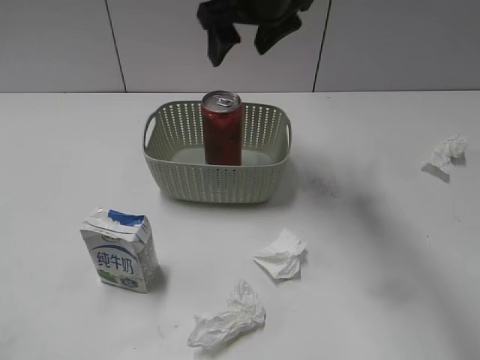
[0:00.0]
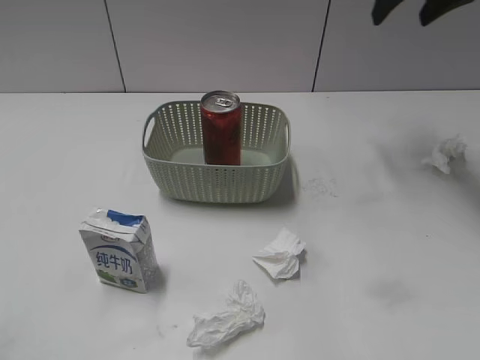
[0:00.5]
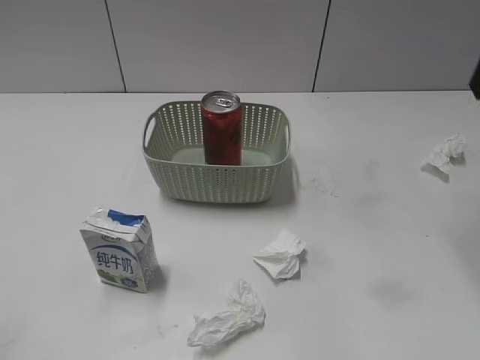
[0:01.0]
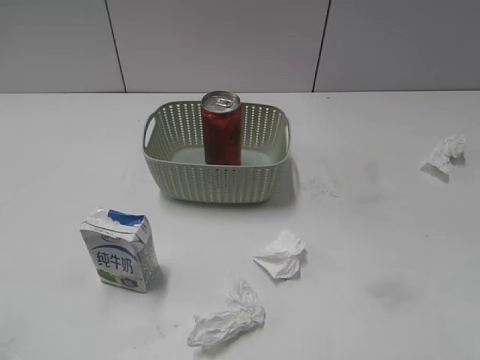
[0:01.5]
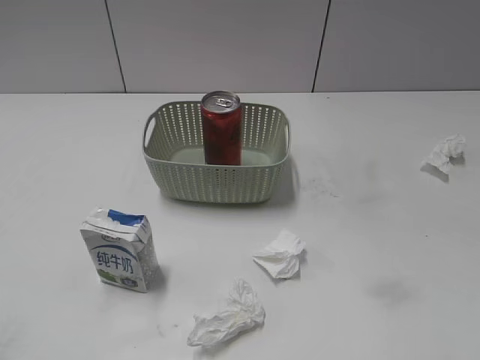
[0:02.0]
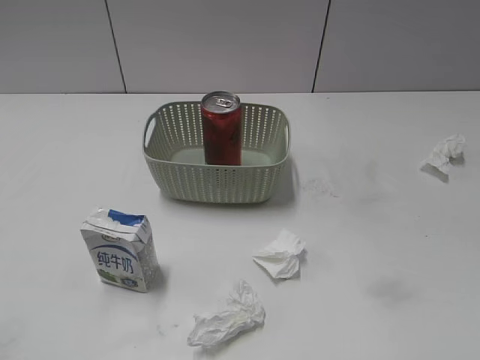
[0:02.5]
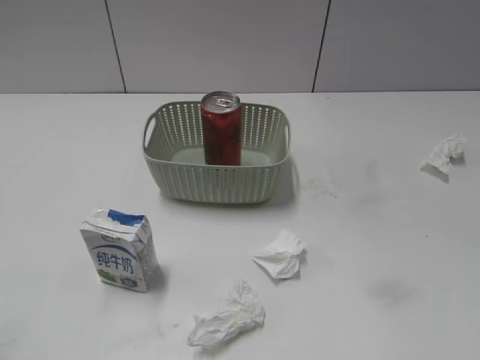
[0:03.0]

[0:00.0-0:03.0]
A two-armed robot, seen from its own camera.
0:00.0 to 0:01.5: The right gripper goes approximately 35 cm backward and to the right.

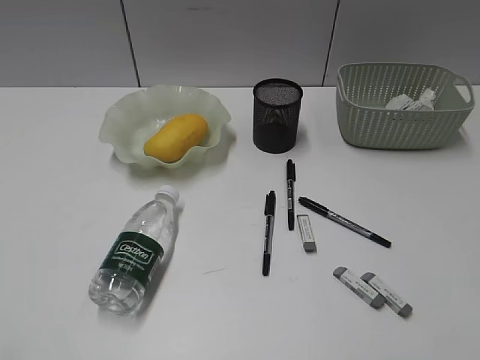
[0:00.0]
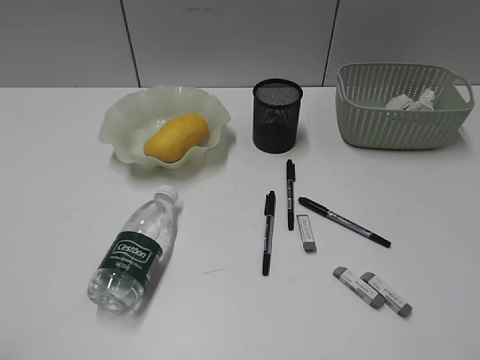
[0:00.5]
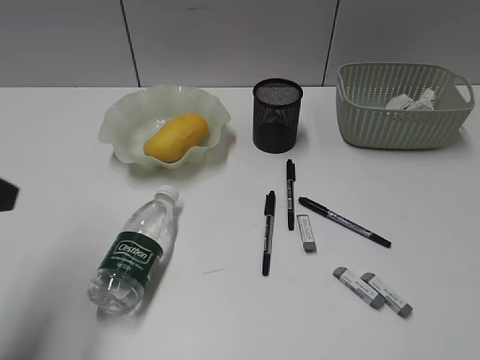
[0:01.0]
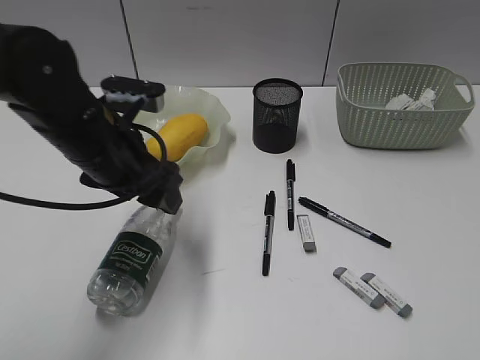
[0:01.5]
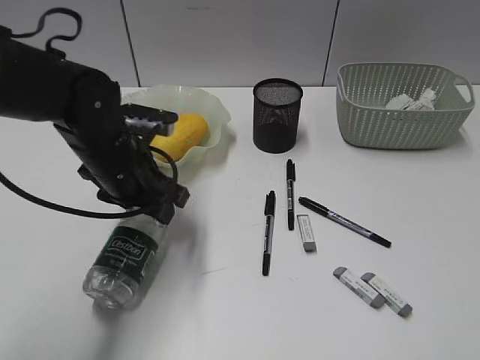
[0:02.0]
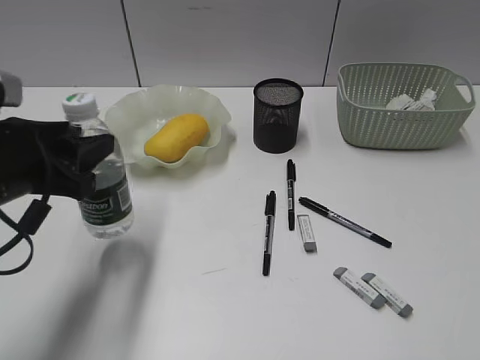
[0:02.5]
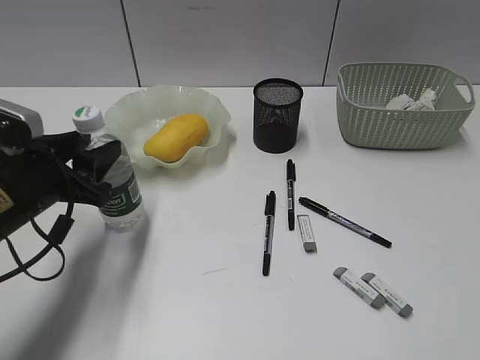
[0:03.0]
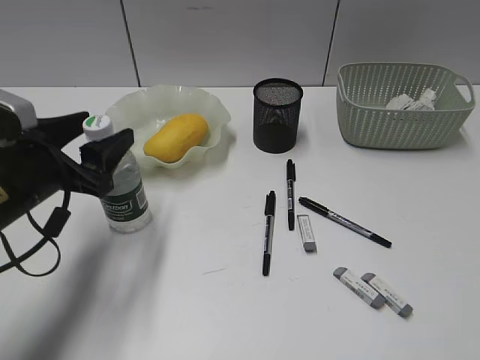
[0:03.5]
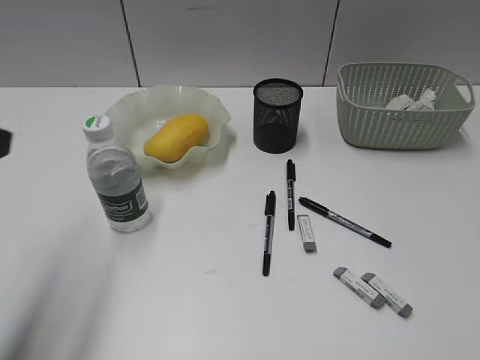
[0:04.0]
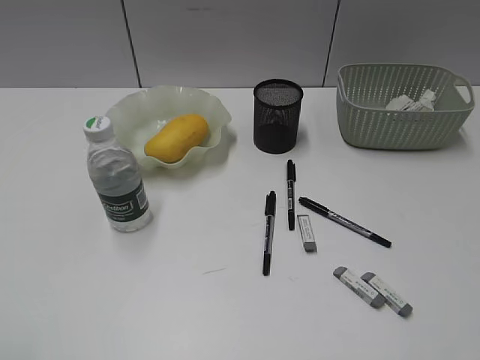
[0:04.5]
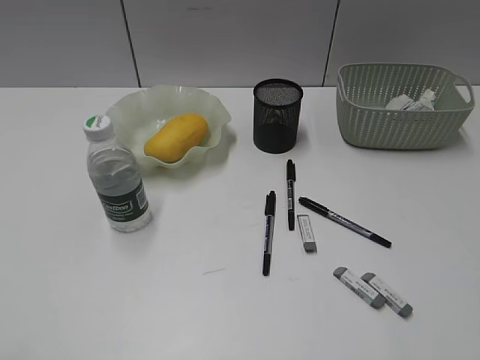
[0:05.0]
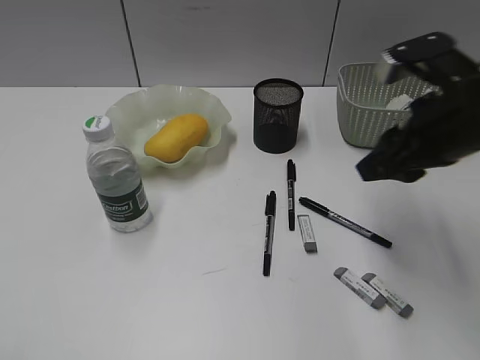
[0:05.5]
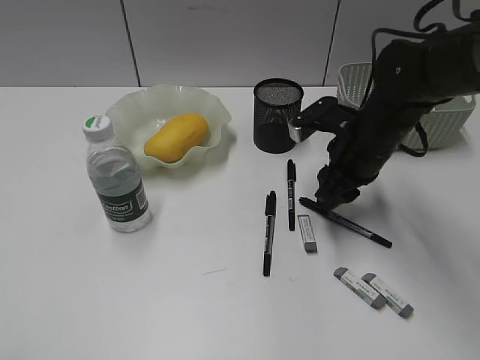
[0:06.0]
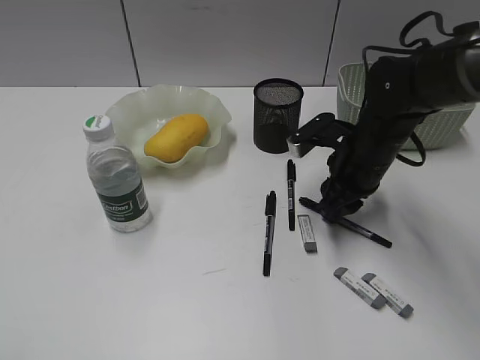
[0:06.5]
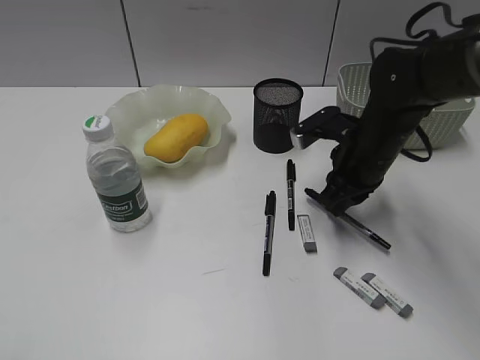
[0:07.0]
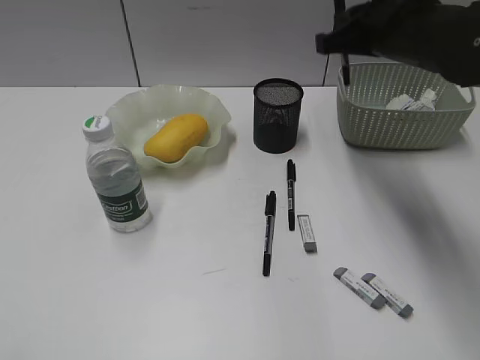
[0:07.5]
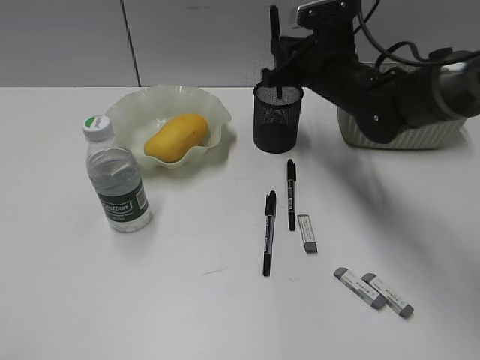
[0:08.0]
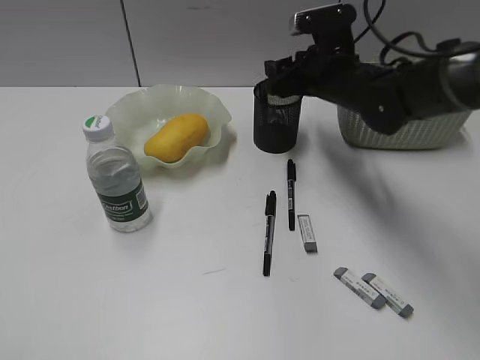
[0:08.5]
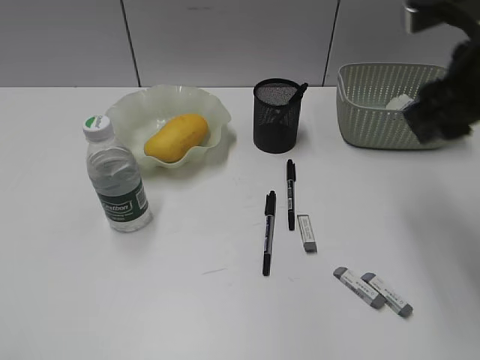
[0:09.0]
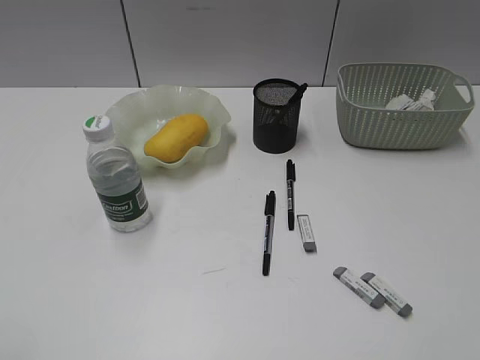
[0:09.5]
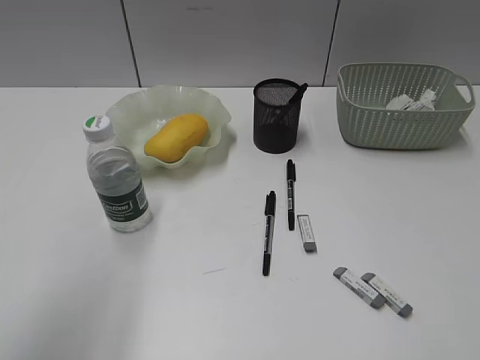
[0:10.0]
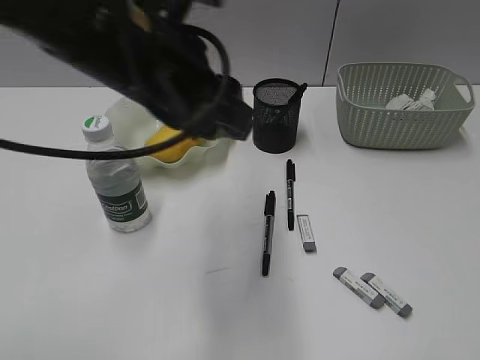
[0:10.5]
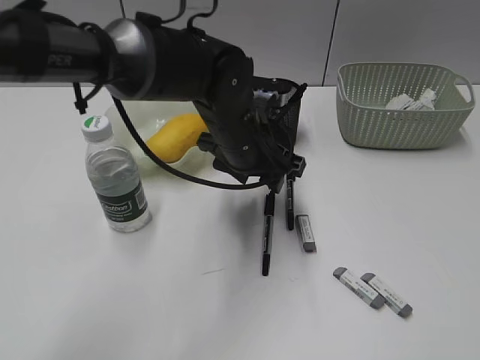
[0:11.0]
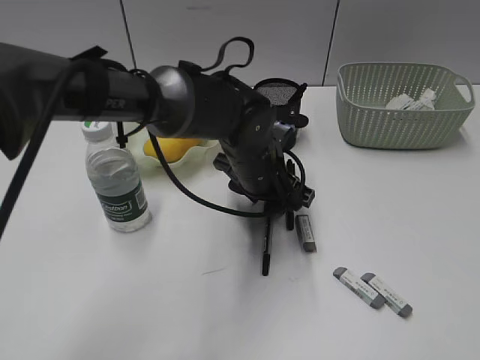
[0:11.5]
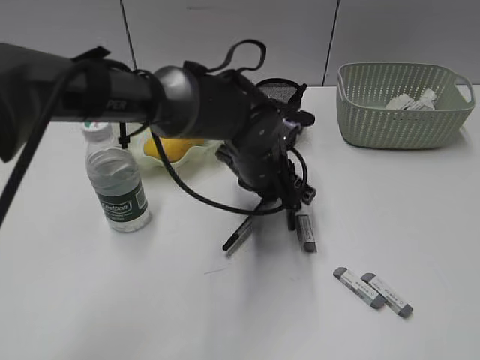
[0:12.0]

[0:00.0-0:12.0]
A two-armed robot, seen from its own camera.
Step, 0:00.0 to 0:01.5: Grasp the bottle with left gripper.
Step, 0:02.0 to 0:03.5: Stand the bottle with left gripper.
Step, 0:04.0 to 0:06.5: Grasp the black pen with right gripper.
Step, 0:07.0 to 0:08.0: Place the black pen in pen holder with right gripper.
Step, 0:08.5 to 0:11.5: Grasp the black pen with left gripper.
0:00.0 to 0:02.0: The left gripper shifts about 40 cm forward, to the right and downward. Meanwhile the right gripper shifts approximately 15 cm backward.
0:02.0 to 0:04.0: The left gripper travels backward, upward and to the left by some 25 cm.
0:04.0 to 0:06.0: The left gripper shifts about 20 cm backward, while the right gripper goes some 40 cm forward, to the left and downward.
0:06.0 to 0:08.0: The right gripper shifts approximately 5 cm forward, goes upward and returns, approximately 10 cm each way, and closes.
0:08.0 to 0:10.0: The left gripper moves forward, to the right and upward, some 15 cm; the right gripper moves backward and to the right, approximately 50 cm, and opens its fingers.
0:10.0 to 0:12.0: The left gripper goes about 40 cm to the right, downward and forward, and closes up.

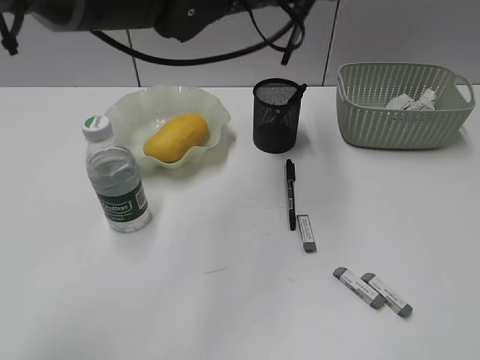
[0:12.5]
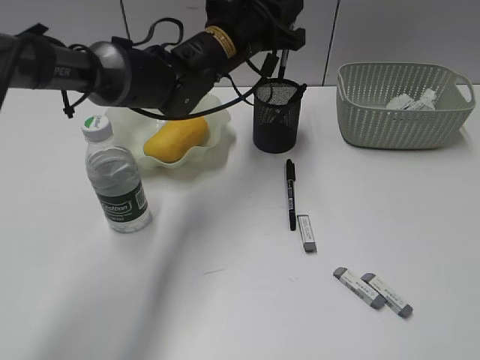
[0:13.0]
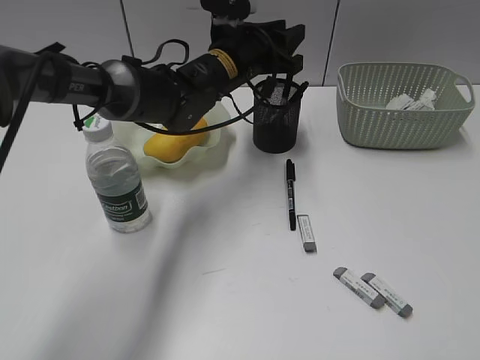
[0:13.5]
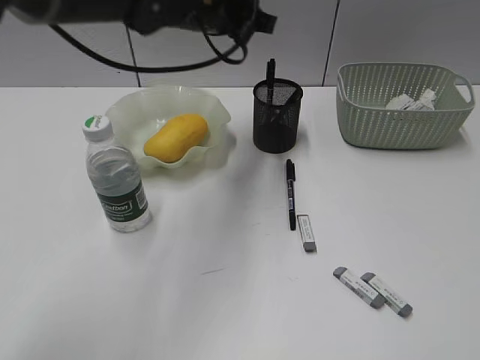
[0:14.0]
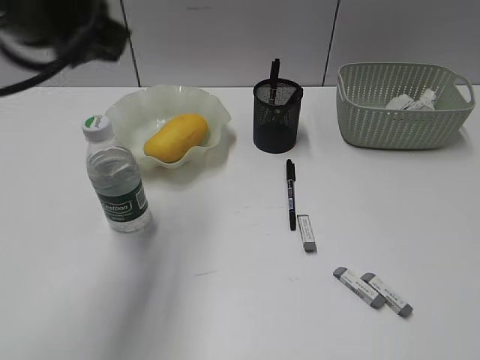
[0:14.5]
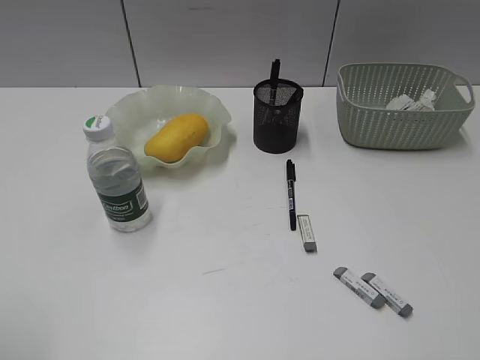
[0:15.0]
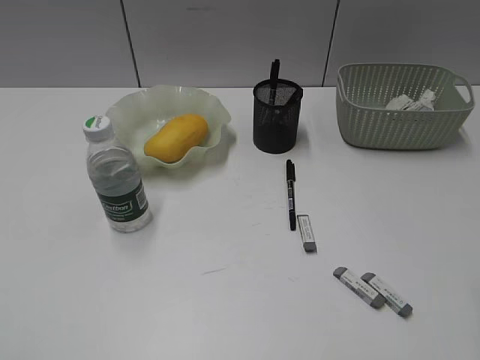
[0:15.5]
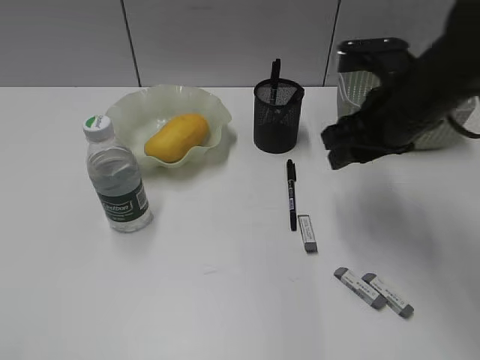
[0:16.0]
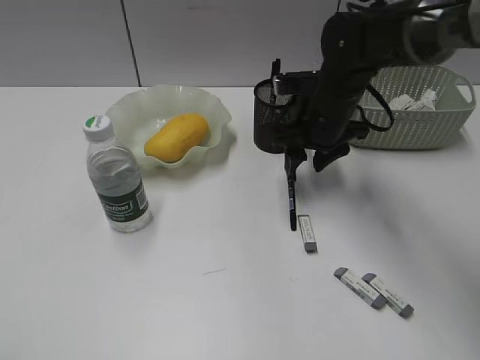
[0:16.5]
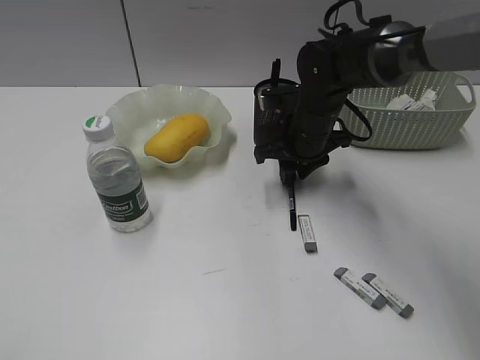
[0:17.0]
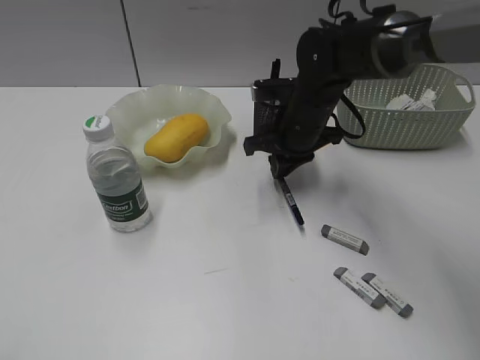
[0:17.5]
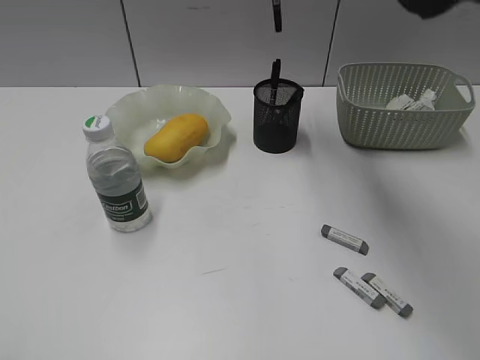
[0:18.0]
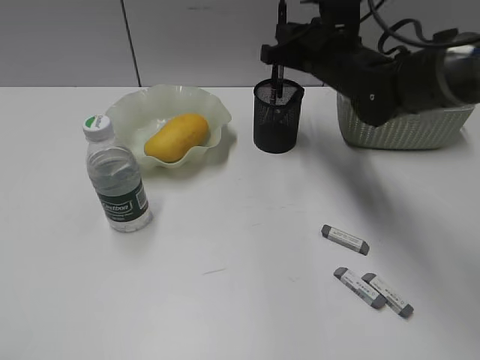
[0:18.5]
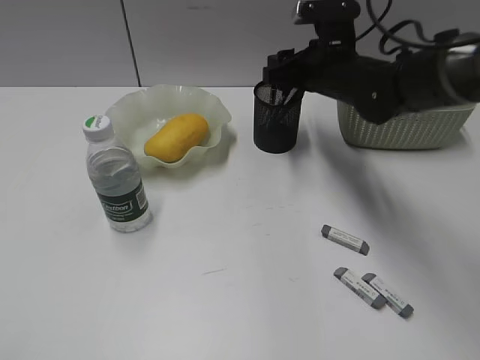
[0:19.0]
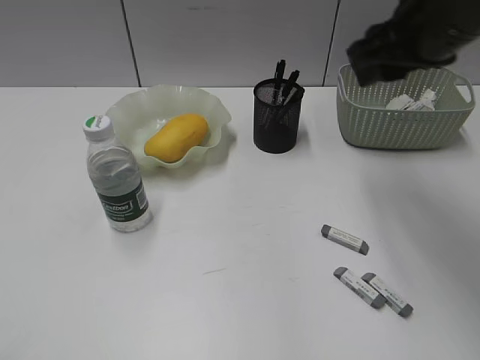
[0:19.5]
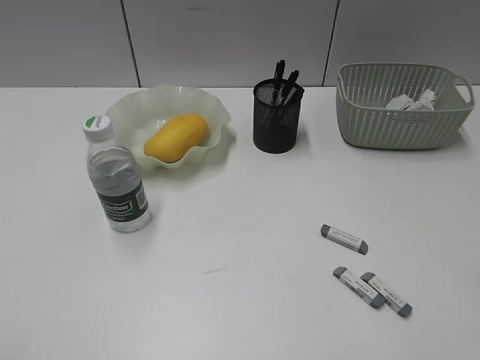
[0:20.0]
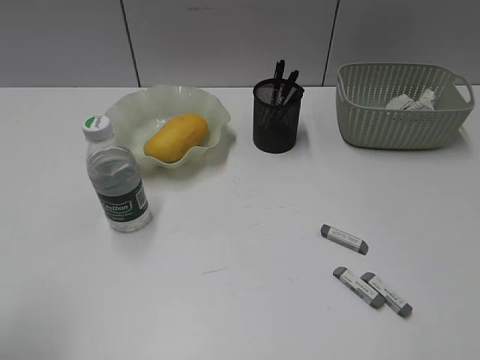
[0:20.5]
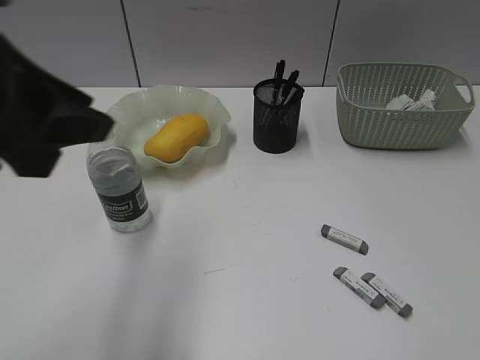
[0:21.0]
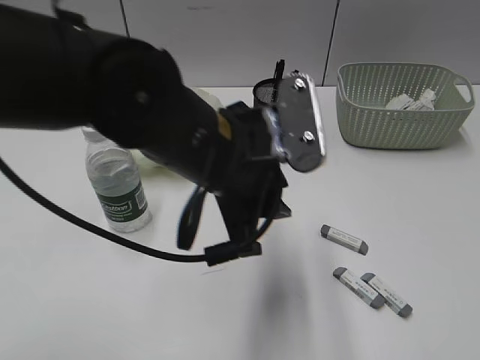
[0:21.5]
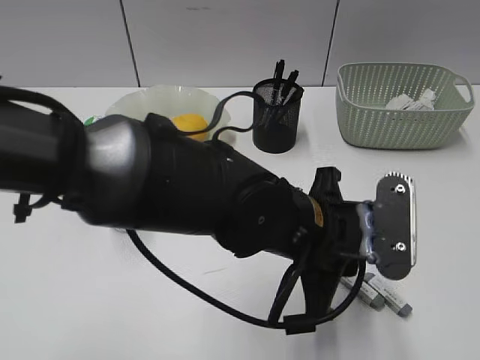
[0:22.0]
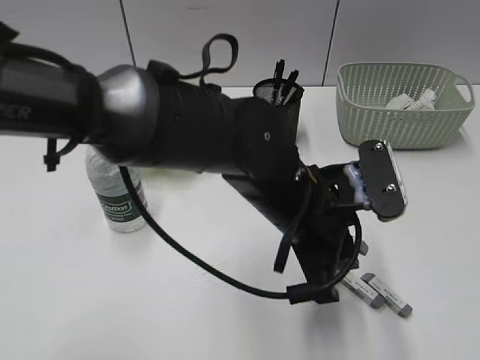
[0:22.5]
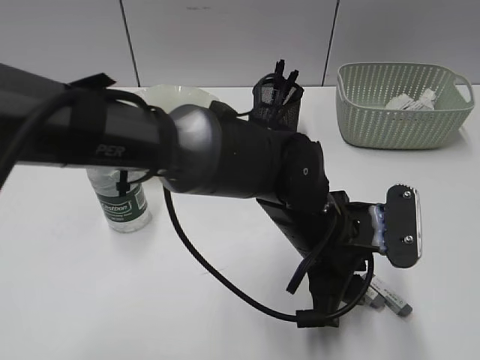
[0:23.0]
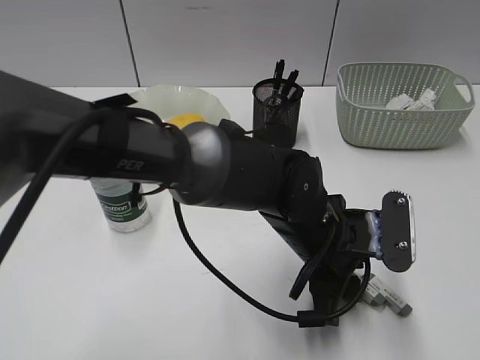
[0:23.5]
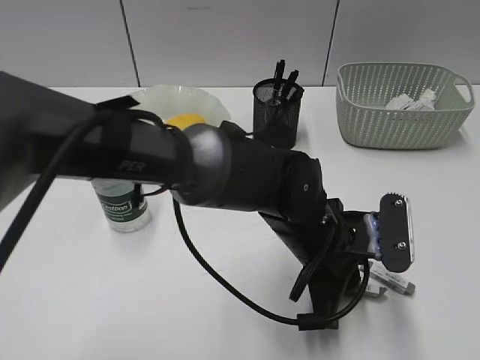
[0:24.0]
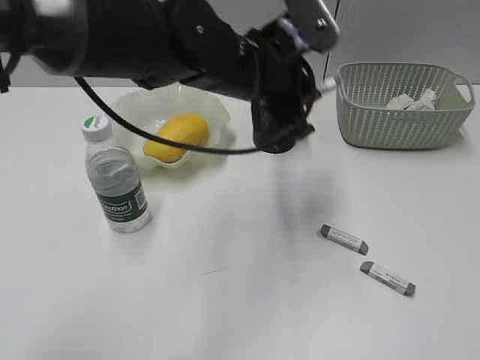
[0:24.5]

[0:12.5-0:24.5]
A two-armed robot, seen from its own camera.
Step, 0:12.5 to 0:13.5: Place the black pen in pen holder with left gripper.
Step, 0:14.0 to 0:17.0: Grasp the black pen with right gripper.
Step, 0:17.5 to 0:19.0: Place the black pen in pen holder with right gripper.
Step, 0:19.5 to 0:24.0: Grasp the eraser with left gripper.
0:12.5 to 0:14.5: The left gripper shifts roughly 20 cm to the left and backward.
0:14.5 to 0:16.5: The right gripper goes roughly 40 cm forward and to the left, while the left gripper goes about 35 cm backward and to the left.
0:16.5 to 0:18.5: The right gripper reaches roughly 20 cm upward, then returns, and closes up.
0:18.5 to 0:20.5: The right gripper shifts approximately 50 cm backward and to the right, and opens. Meanwhile the left gripper travels forward by approximately 5 cm.
0:20.5 to 0:22.5: The left gripper shifts roughly 40 cm to the right and forward.
0:22.5 to 0:24.5: The left gripper is displaced forward and upward by roughly 10 cm, and opens and closes again.
